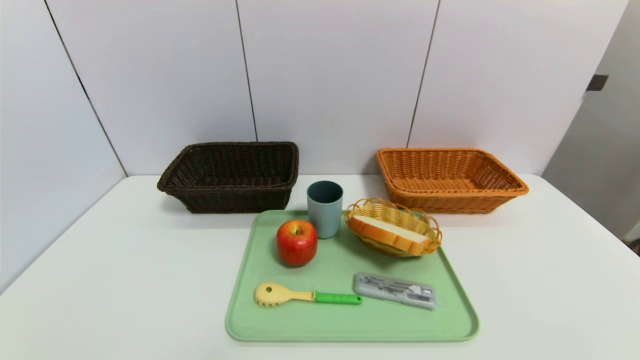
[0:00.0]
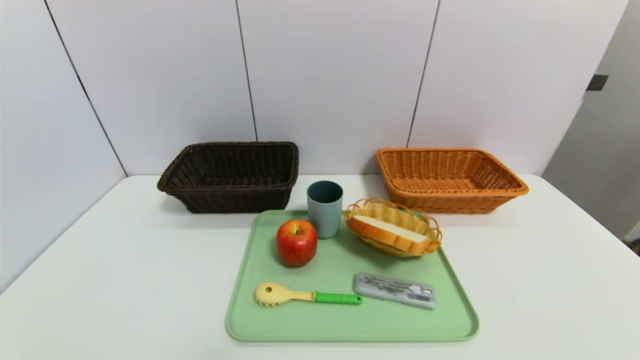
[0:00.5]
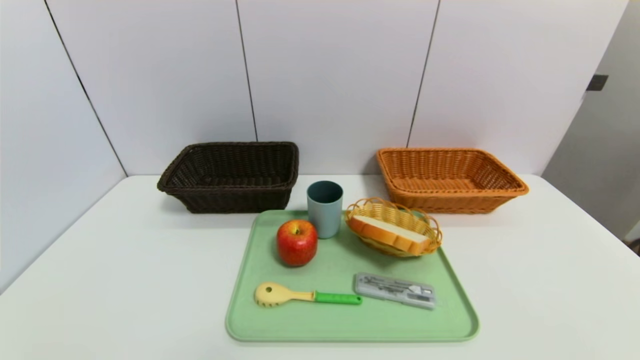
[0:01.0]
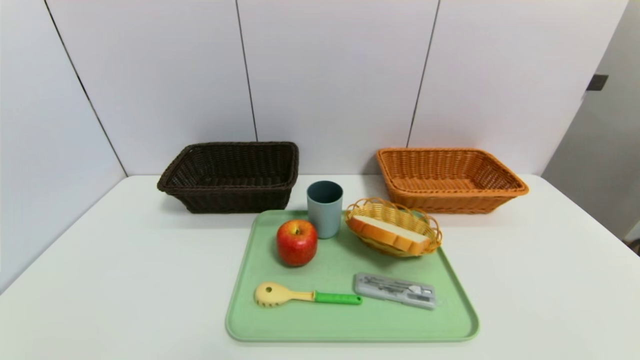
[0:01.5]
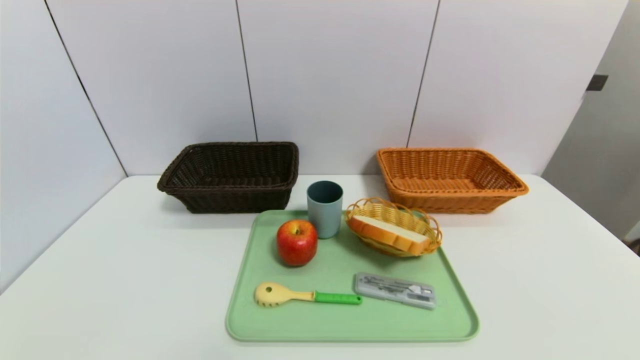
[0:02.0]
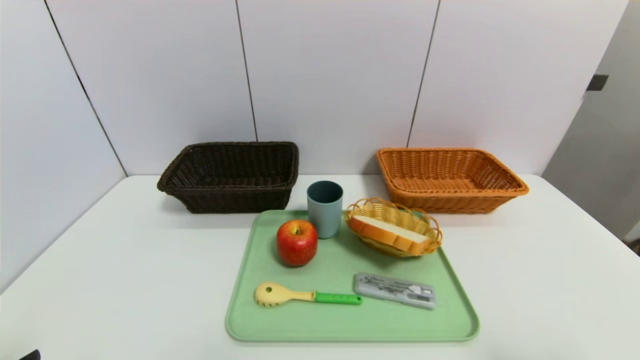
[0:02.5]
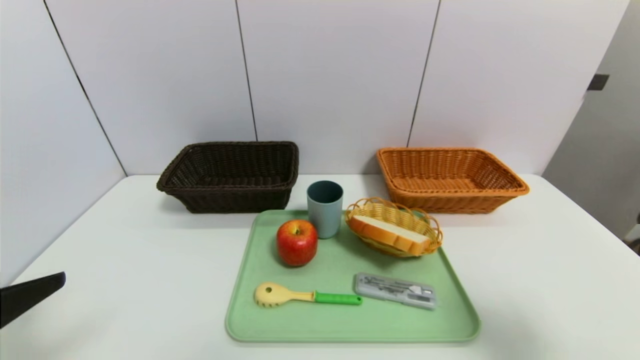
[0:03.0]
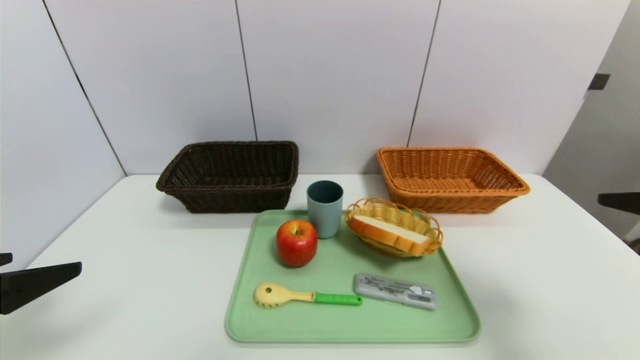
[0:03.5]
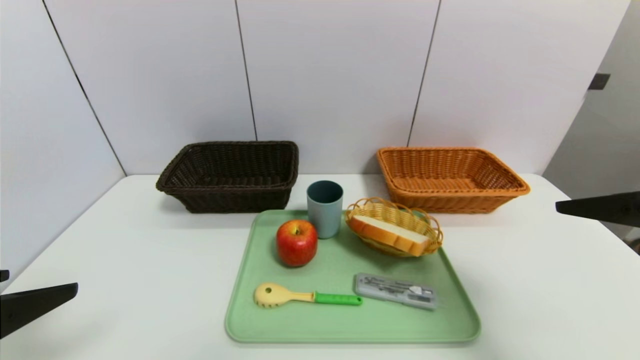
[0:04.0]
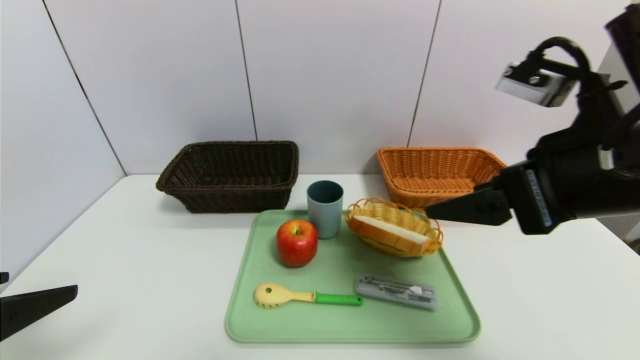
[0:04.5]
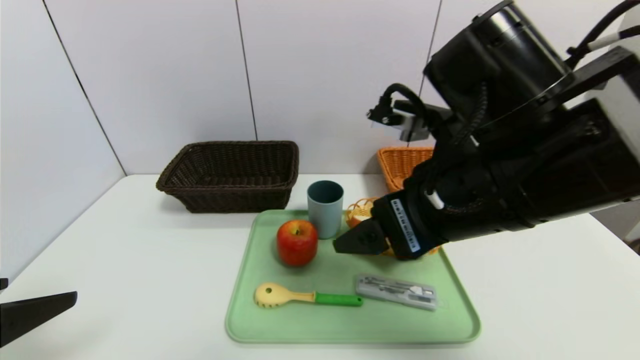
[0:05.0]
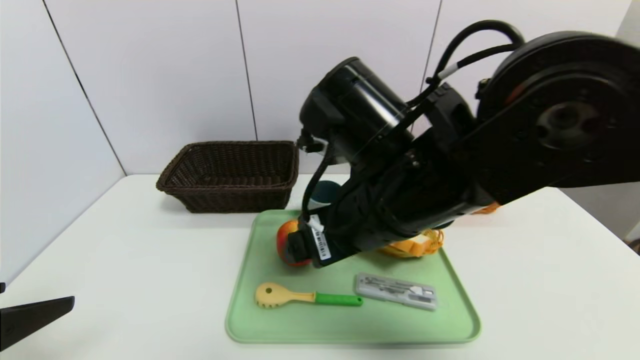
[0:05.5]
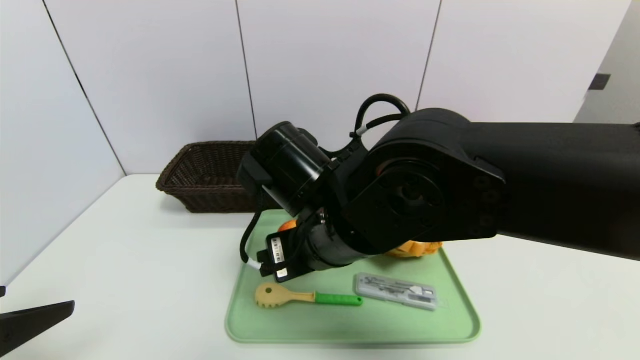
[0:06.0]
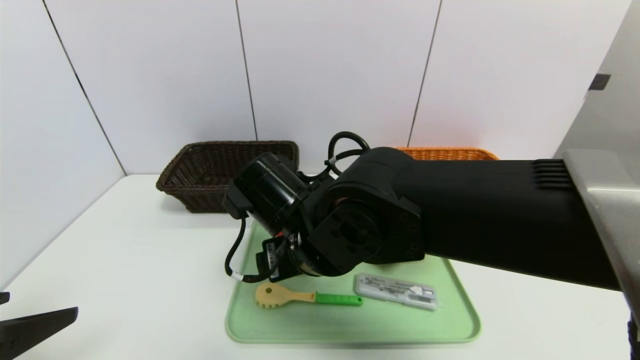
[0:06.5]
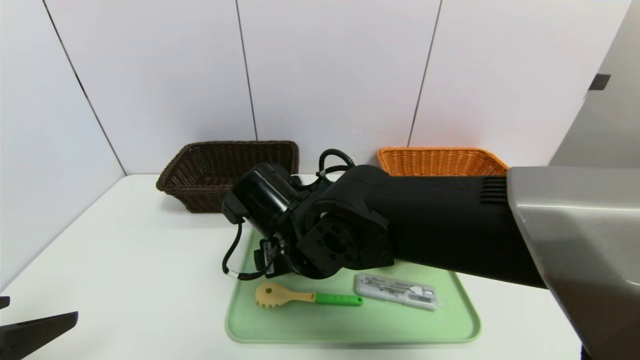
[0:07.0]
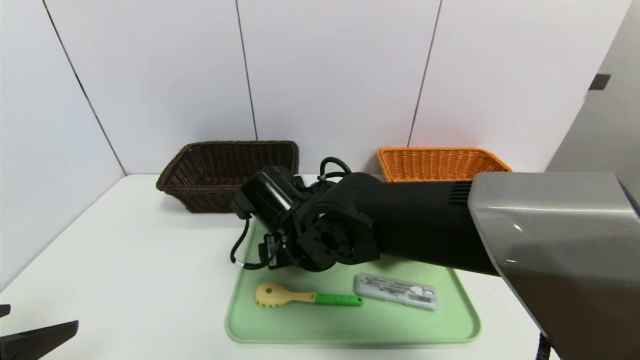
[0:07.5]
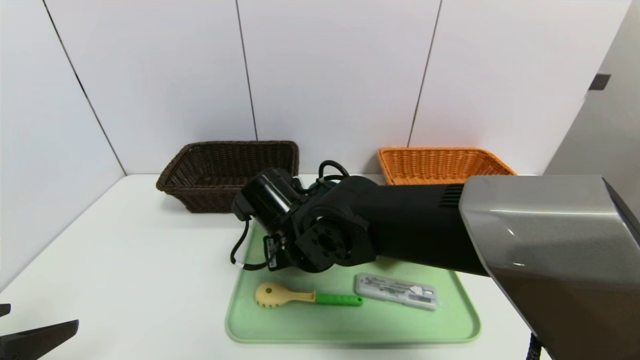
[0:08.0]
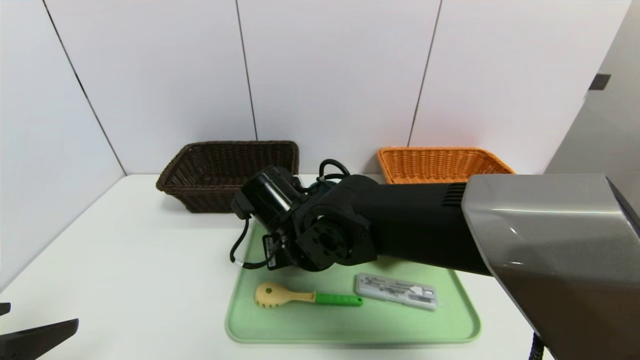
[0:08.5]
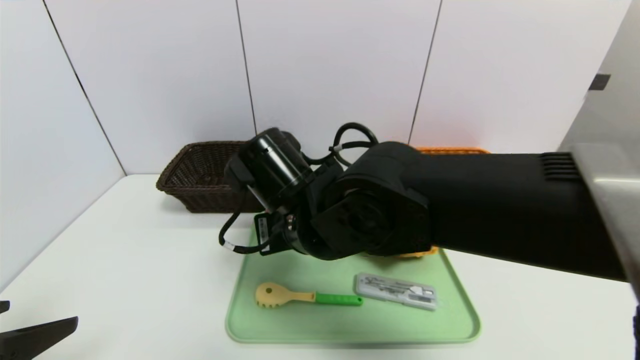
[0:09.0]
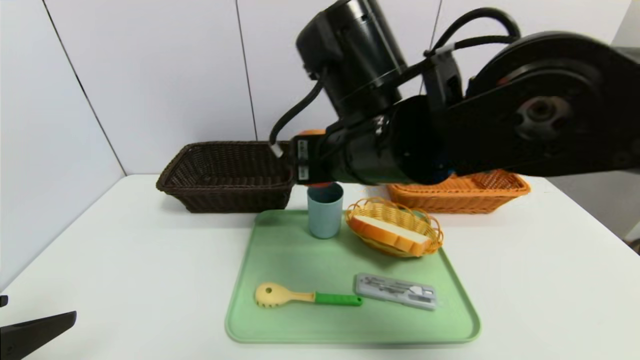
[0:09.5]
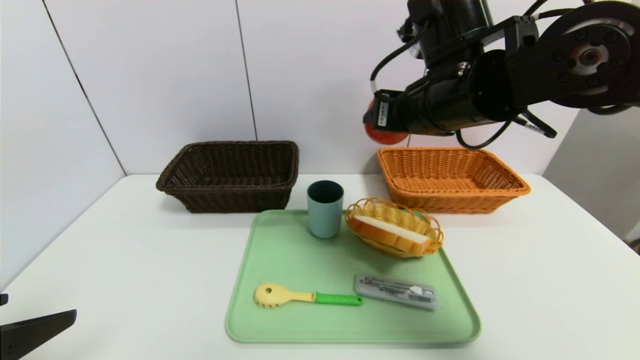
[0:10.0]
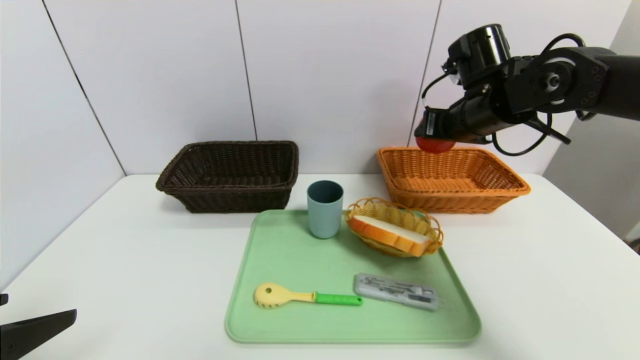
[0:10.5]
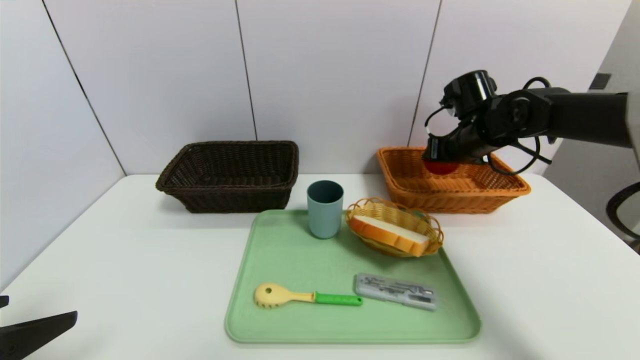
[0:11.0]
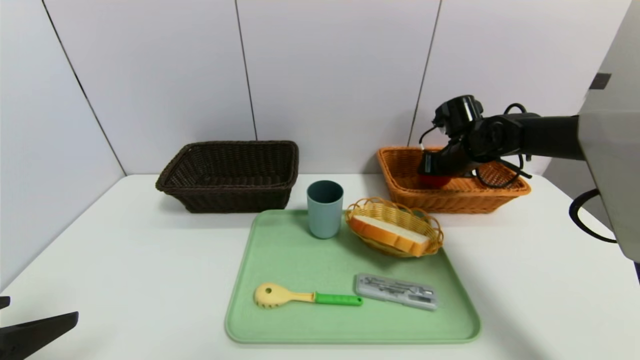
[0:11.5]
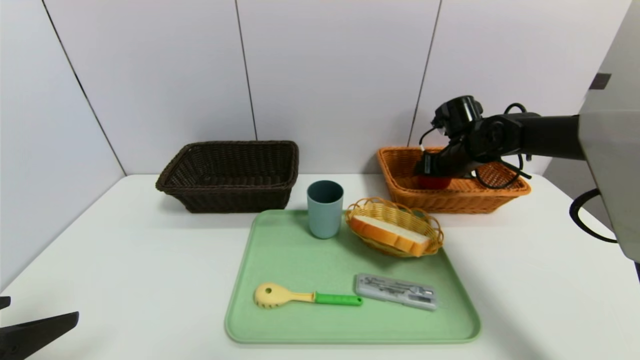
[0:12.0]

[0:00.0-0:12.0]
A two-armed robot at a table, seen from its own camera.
Task of the whole recording: place the food in the right basket with the right gripper, and place the non food items in the left basket with the left gripper.
0:02.0 to 0:04.0: The right gripper shifts some 25 cm forward and upward. The left gripper goes approximately 15 cm upward and forward.
0:04.0 to 0:06.0: The right gripper shifts some 30 cm to the left.
0:06.0 to 0:08.0: The right gripper heads downward and forward, covering approximately 10 cm.
0:08.0 to 0:10.0: The right gripper moves upward and to the right, about 25 cm.
0:10.0 to 0:12.0: The right gripper goes about 25 cm forward, downward and to the right.

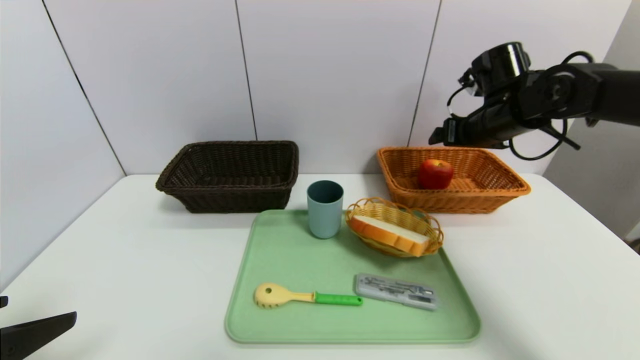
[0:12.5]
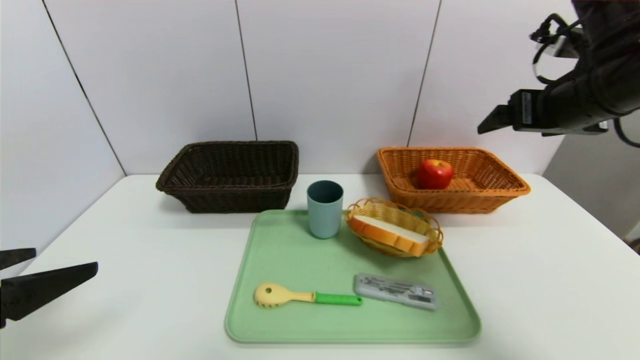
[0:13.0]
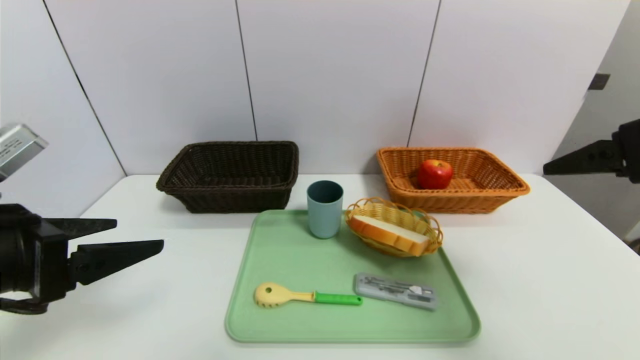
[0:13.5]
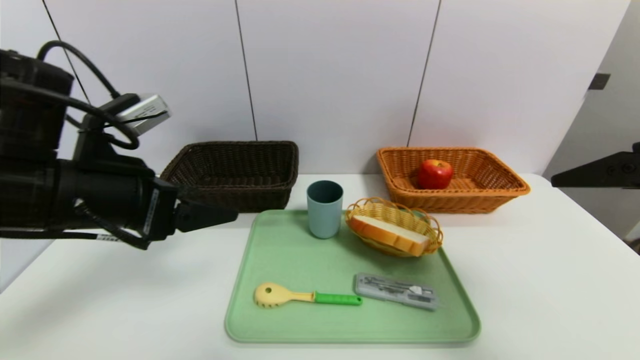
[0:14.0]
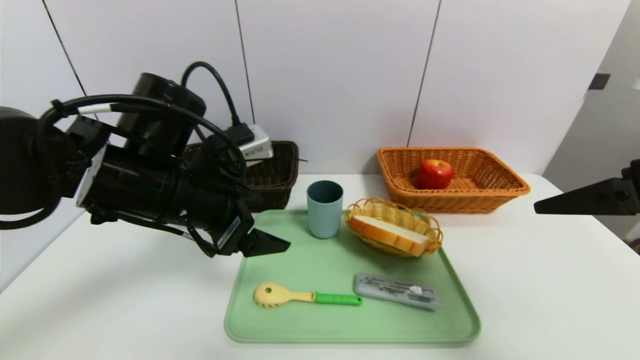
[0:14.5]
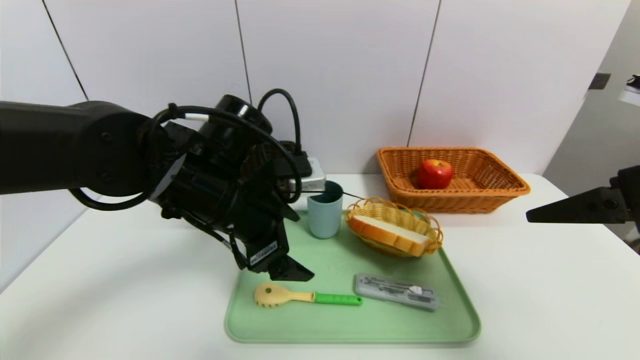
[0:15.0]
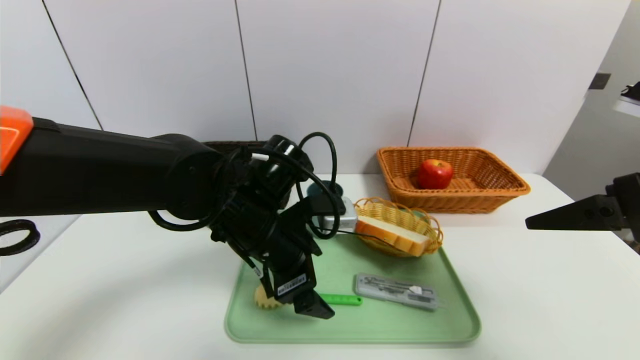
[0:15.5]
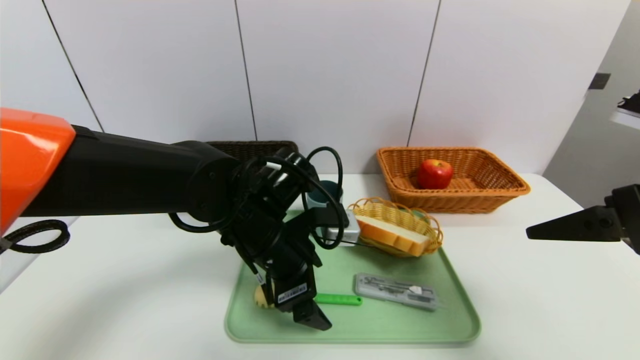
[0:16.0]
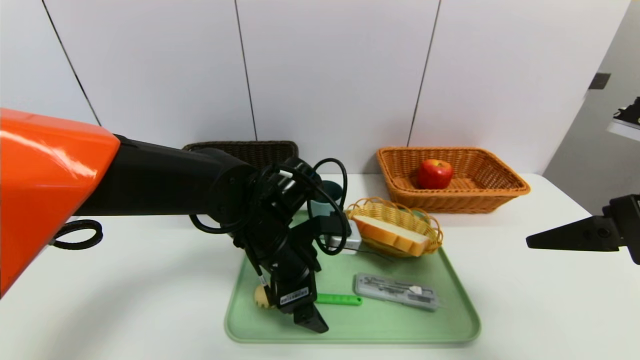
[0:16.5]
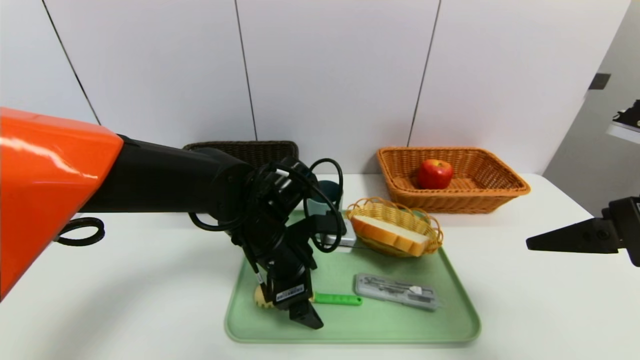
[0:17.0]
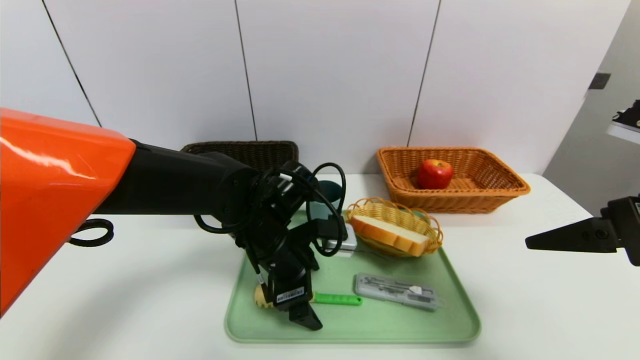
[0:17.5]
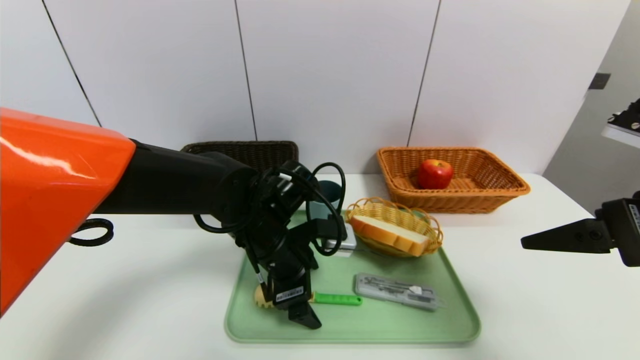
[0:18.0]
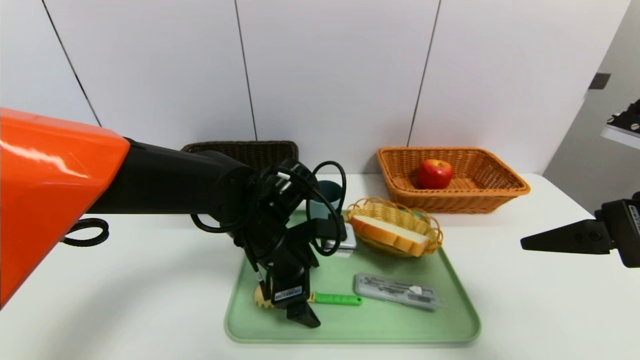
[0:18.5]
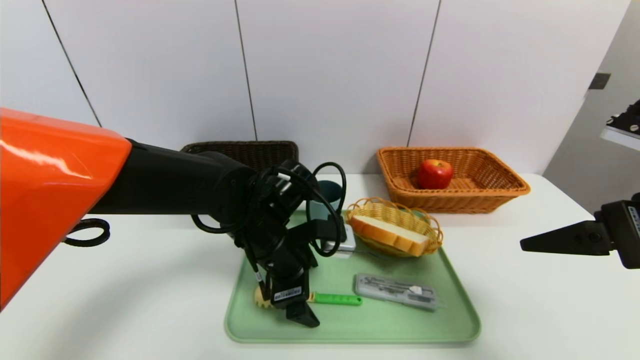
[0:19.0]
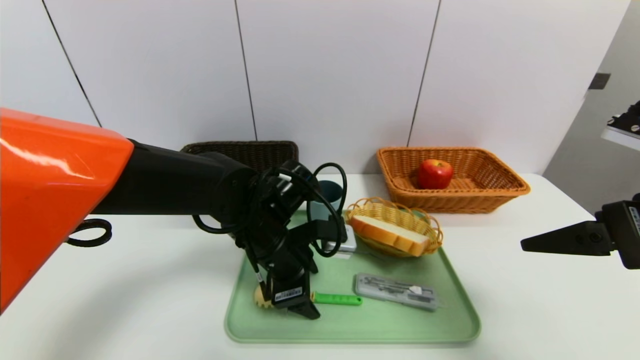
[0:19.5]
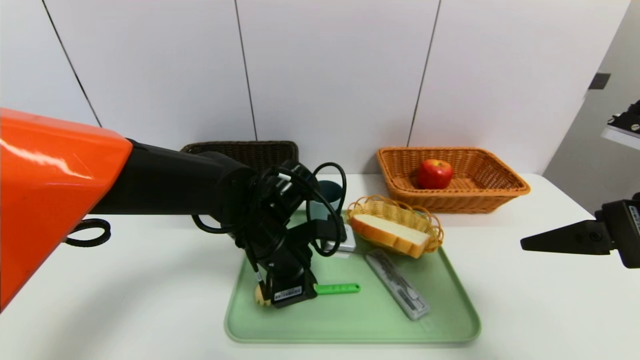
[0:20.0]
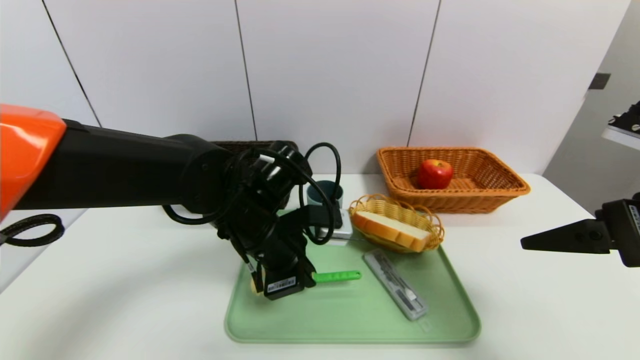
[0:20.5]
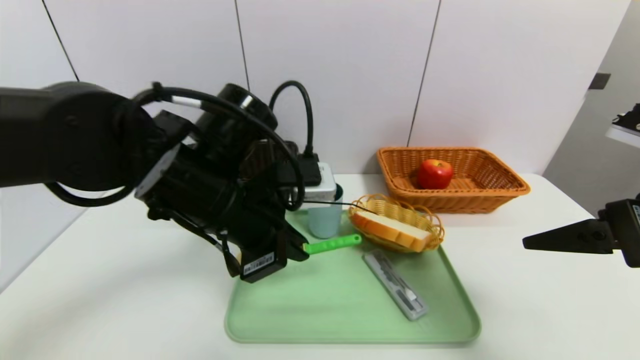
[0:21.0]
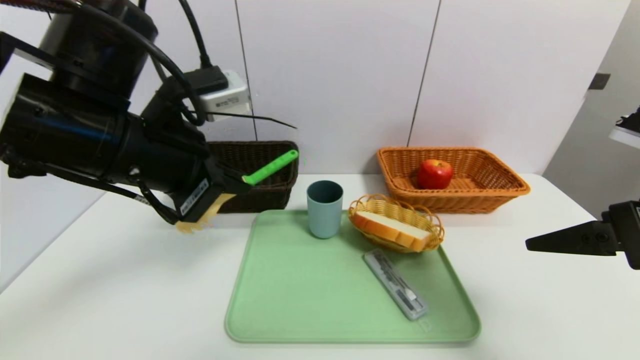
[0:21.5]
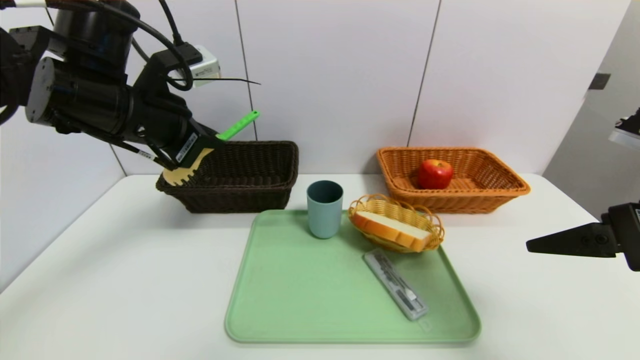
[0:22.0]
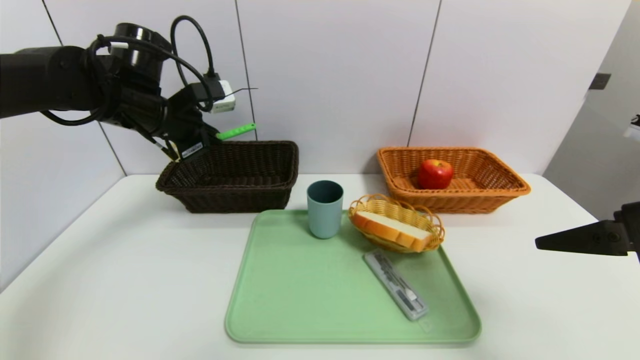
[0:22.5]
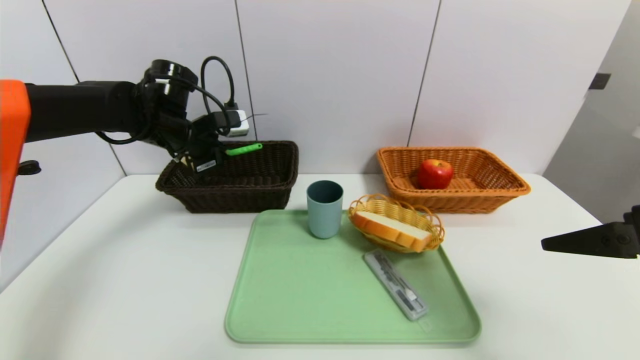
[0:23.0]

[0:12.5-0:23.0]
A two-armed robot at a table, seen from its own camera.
Task of the whole recording: place the food in the right basket with the right gripper, and place the non food items in the left basket with the left gripper.
0:12.5 to 0:14.5: The left gripper travels forward and to the right by approximately 25 cm; the right gripper shifts approximately 25 cm backward.
0:14.5 to 0:16.5: The left gripper shifts about 15 cm to the right and downward.
0:16.5 to 0:19.0: There are only small adjustments of the grippers.
0:19.0 to 0:21.0: The left gripper is displaced upward by some 10 cm, and closes up.
0:21.0 to 0:23.0: The left gripper is displaced forward and to the left by approximately 20 cm.
